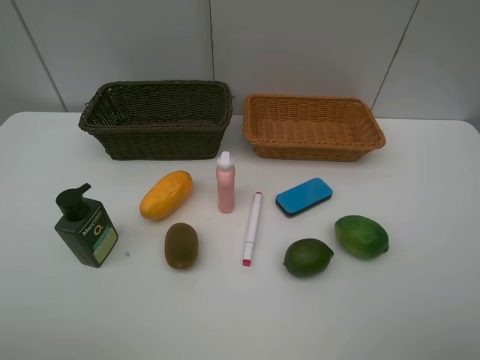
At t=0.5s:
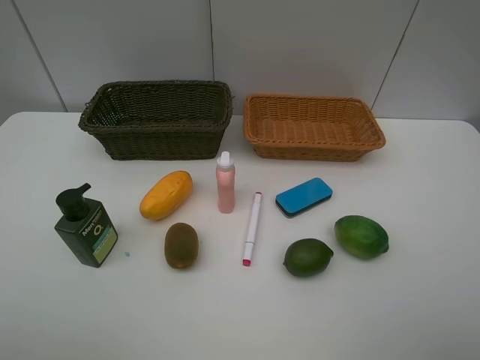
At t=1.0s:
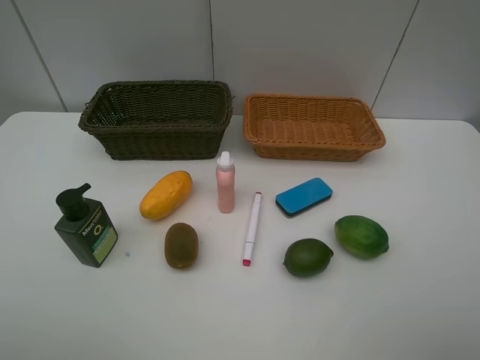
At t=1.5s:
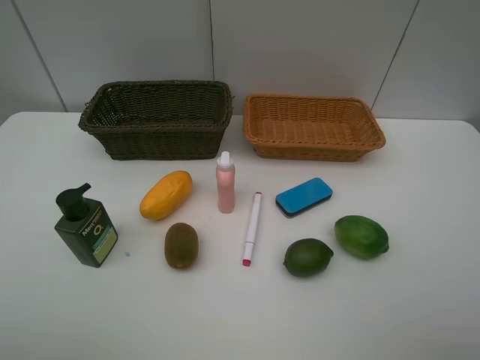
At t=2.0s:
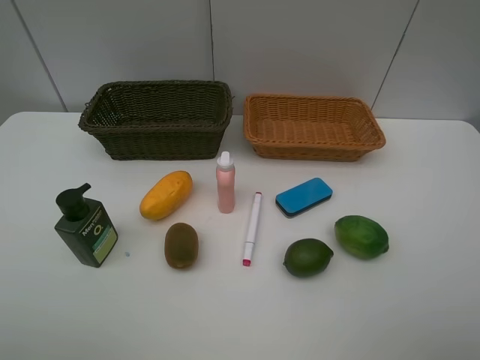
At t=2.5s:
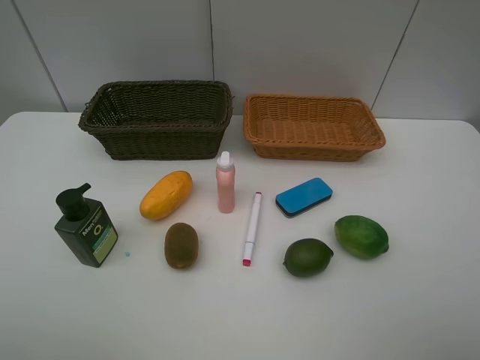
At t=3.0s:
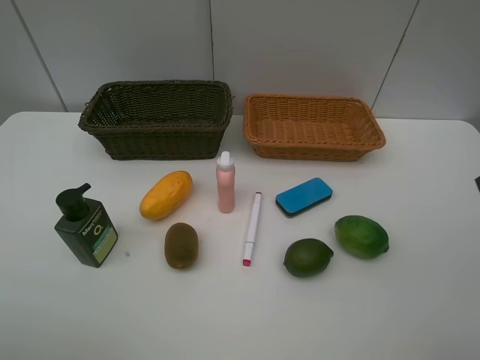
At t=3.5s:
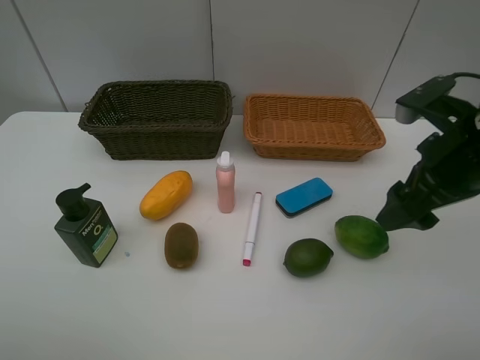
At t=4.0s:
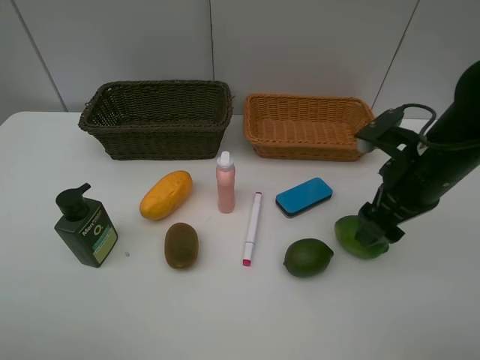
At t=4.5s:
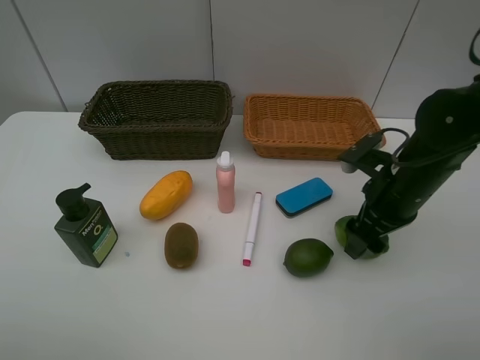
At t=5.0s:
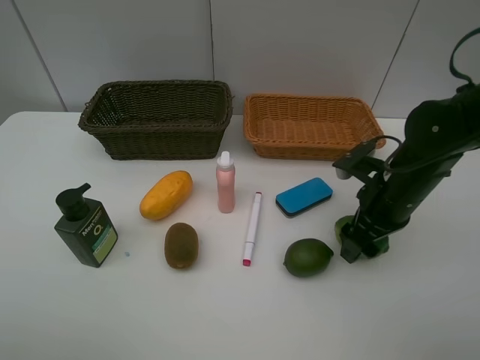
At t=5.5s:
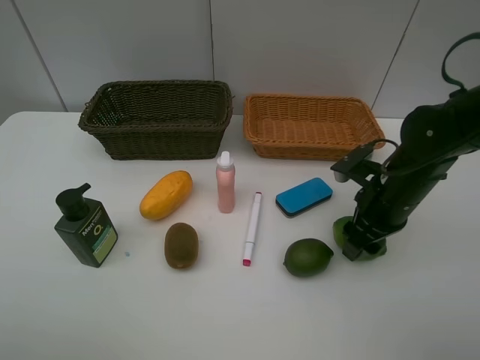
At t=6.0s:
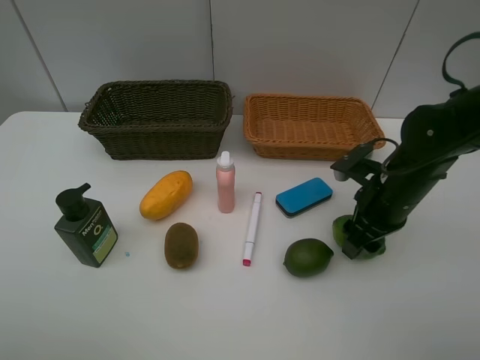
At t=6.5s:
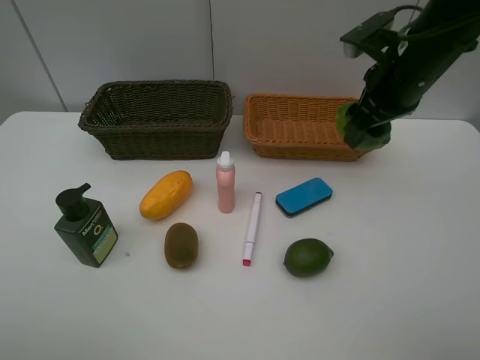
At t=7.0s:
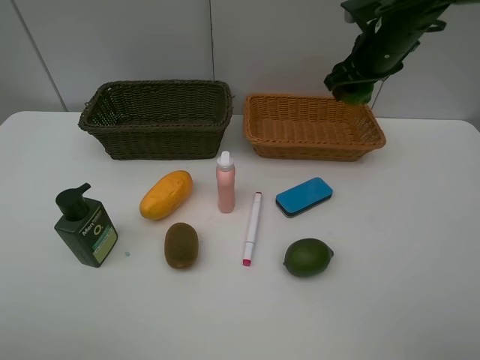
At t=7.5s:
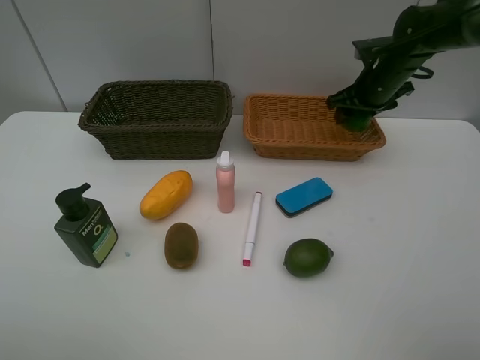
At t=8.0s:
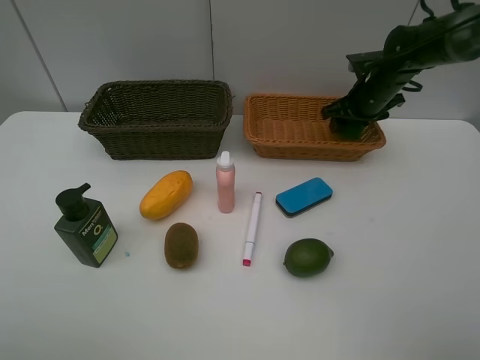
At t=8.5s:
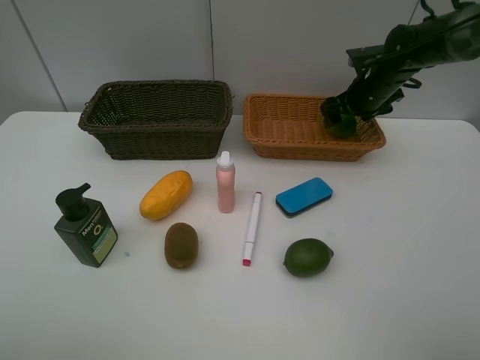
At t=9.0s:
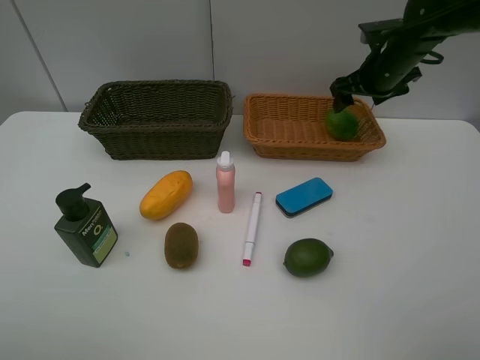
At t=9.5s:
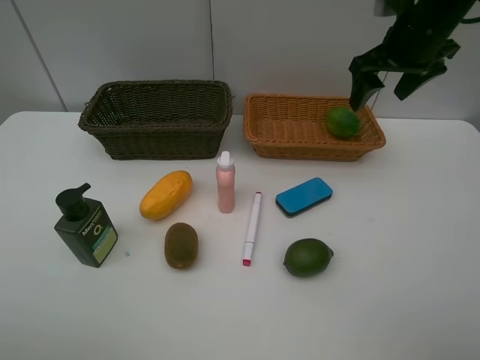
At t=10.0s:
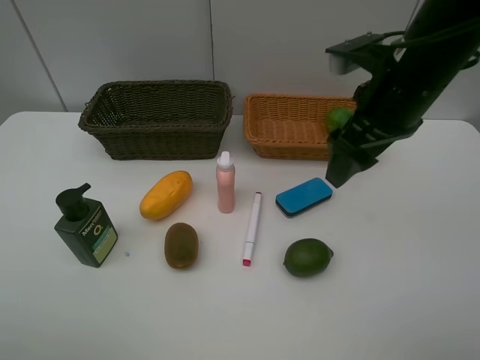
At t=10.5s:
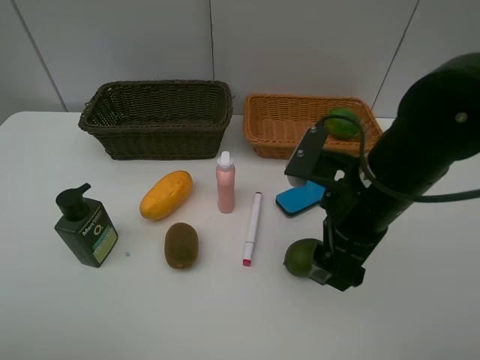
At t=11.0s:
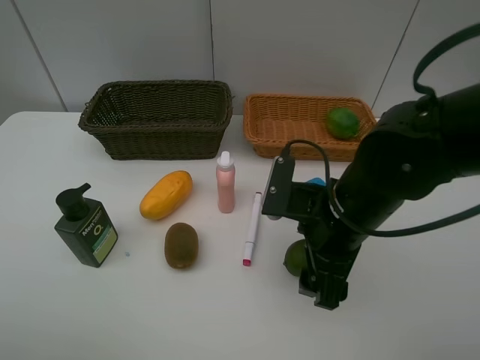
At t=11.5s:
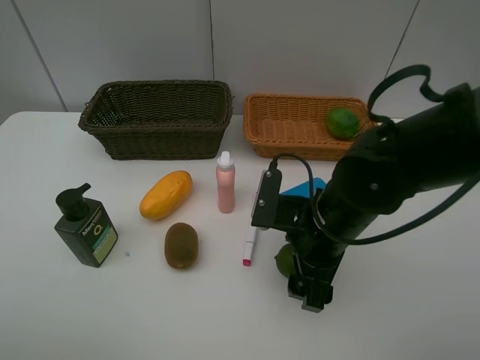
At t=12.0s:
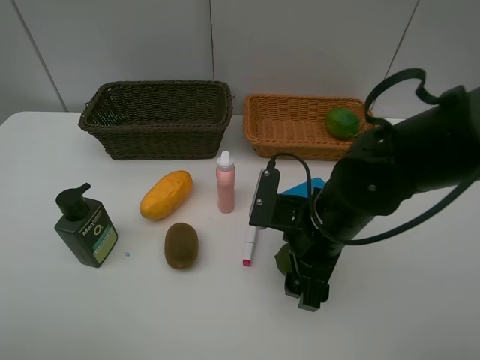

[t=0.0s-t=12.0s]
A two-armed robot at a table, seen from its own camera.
Task of the whole recording: Place multiple objects separately in different baskets.
Step, t=0.0s to t=6.0s: Pick up the lime with right gripper.
Step, t=6.5s to t=8.5s: Place the lime in the light basket with right gripper.
t=0.0s to t=2.0s: Both grippers stay about where they are.
t=2.0s to t=4.0s: The right gripper is displaced forward and downward by about 25 cm.
t=4.0s to t=6.0s: The right gripper travels downward by some 5 cm.
t=6.0s to t=8.0s: The right gripper is displaced forward by roughly 20 cm.
t=8.0s to t=10.0s: The right gripper moves backward and upward, approximately 25 cm.
t=10.0s to t=12.0s: The right gripper travels downward and to the left by some 15 cm.

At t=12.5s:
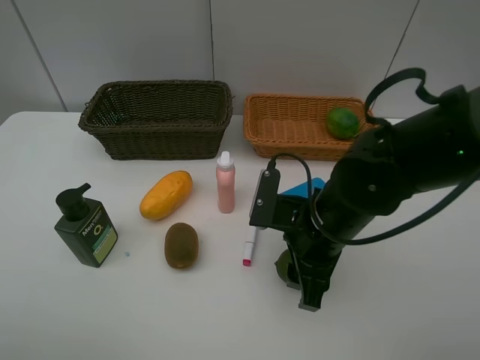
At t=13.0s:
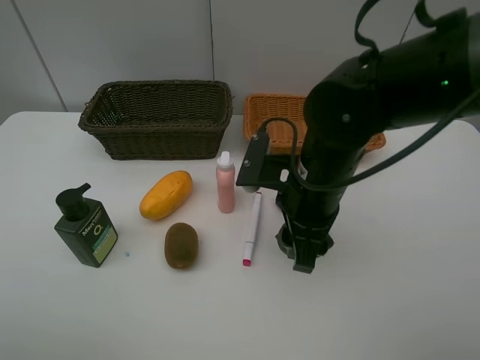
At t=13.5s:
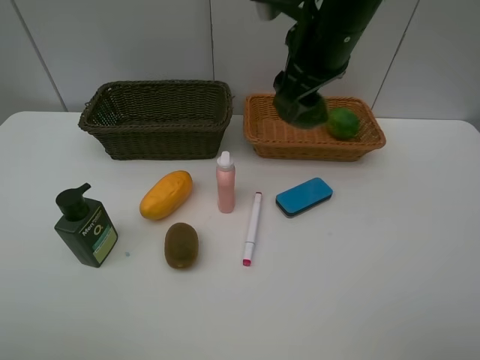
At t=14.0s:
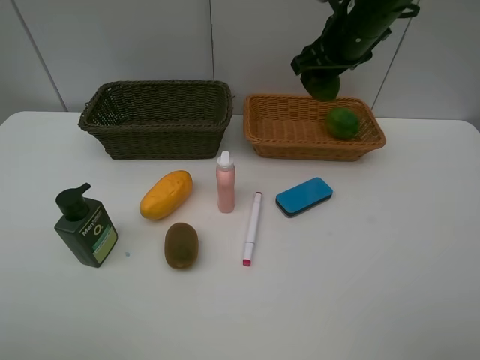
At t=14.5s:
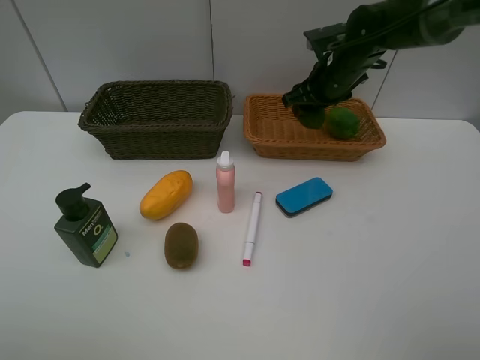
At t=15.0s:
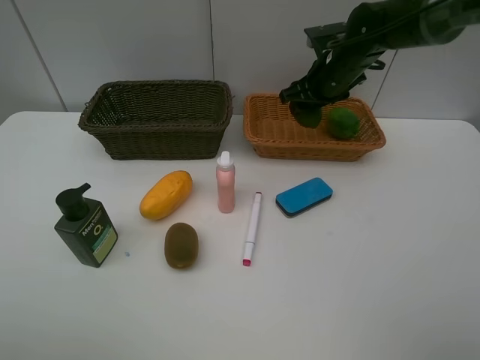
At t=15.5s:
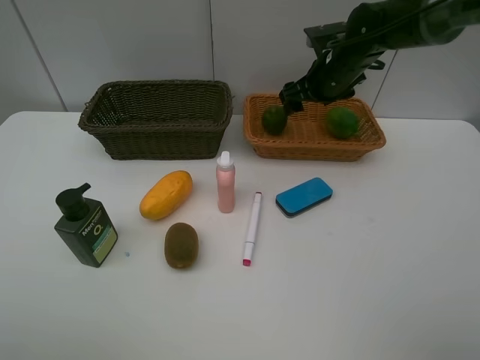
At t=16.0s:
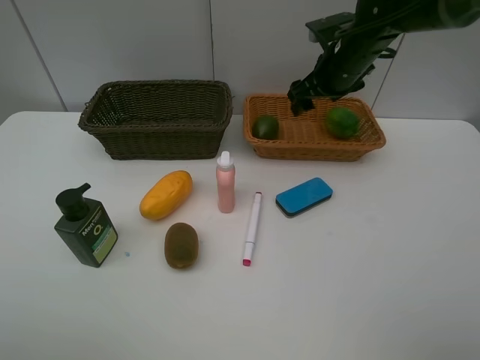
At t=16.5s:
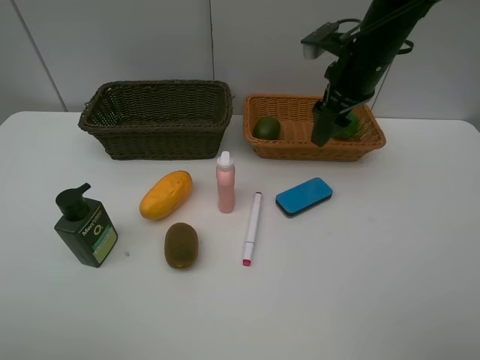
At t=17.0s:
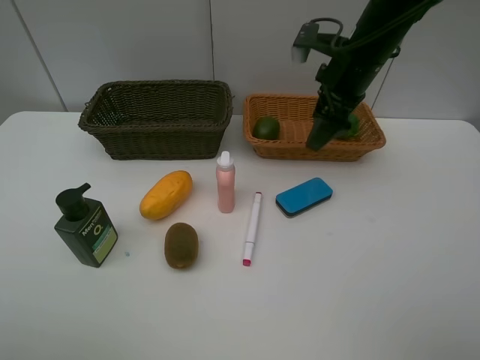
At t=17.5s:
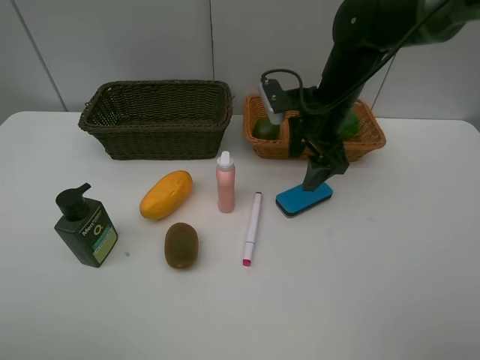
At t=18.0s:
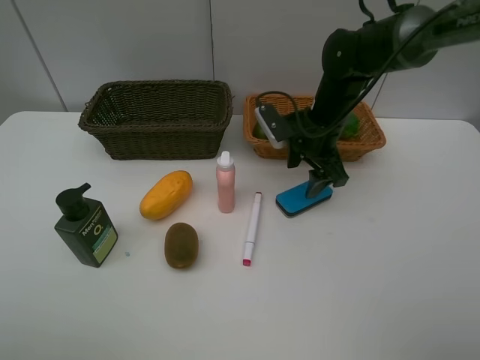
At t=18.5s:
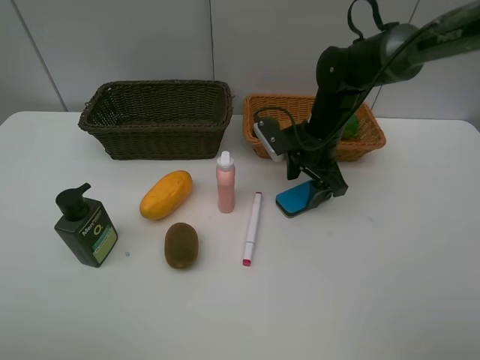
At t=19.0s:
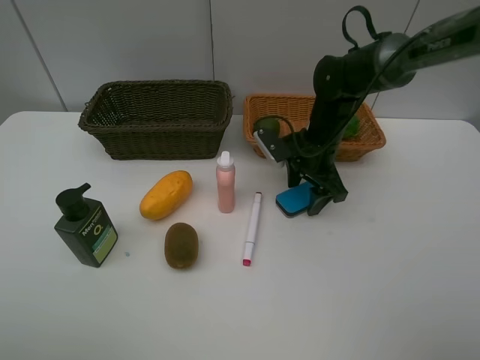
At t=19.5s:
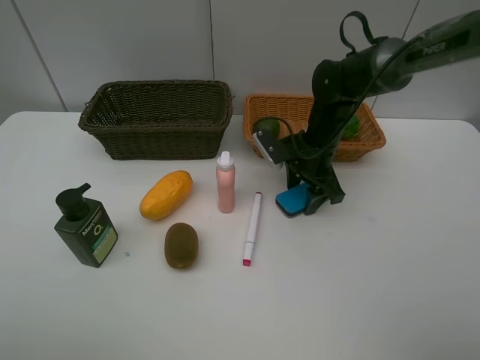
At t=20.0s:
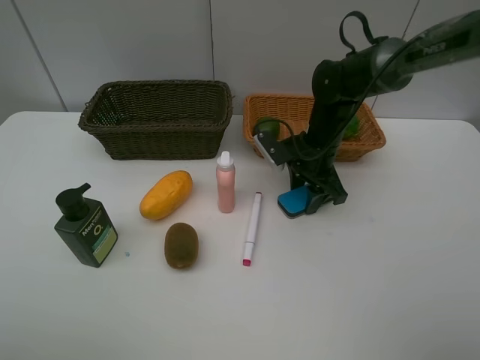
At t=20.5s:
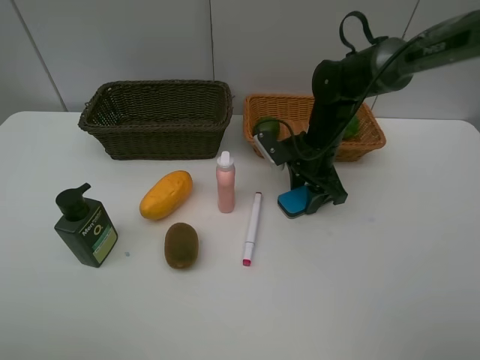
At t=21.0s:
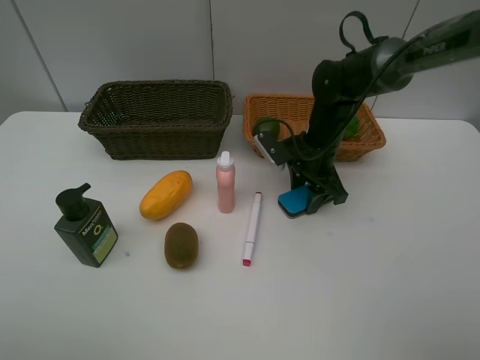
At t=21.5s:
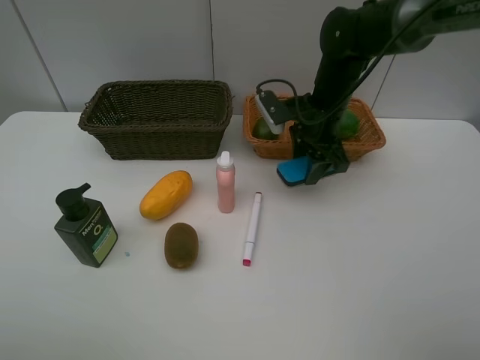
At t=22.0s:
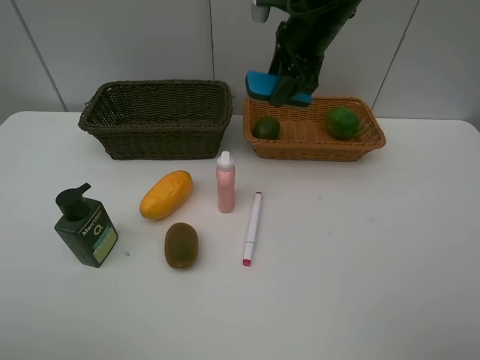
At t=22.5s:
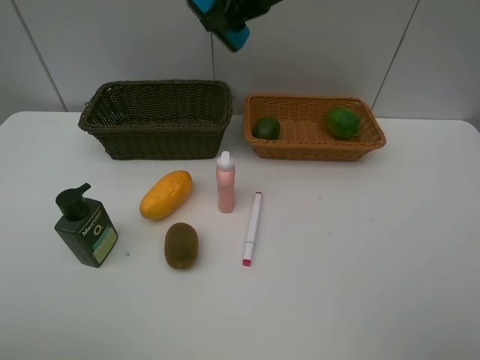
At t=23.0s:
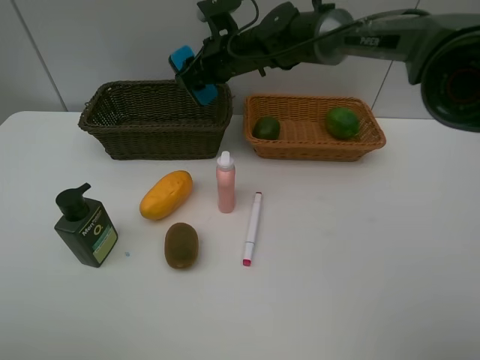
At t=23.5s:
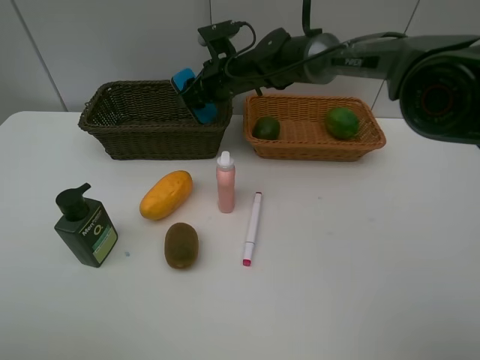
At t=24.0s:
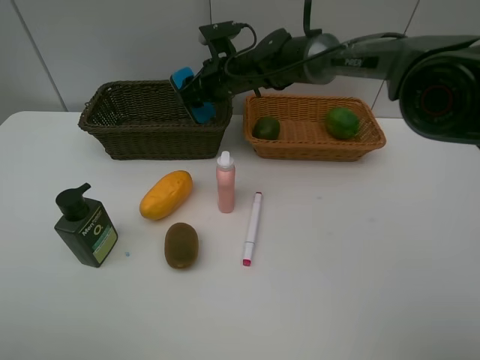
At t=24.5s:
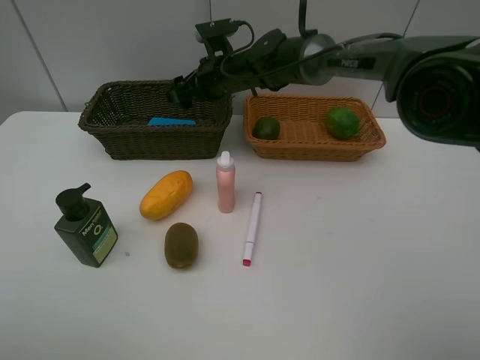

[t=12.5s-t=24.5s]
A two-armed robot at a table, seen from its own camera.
Task of the whole recording: Place multiple objects separately in different baskets.
Step, t=13.0s to t=15.0s: Place the lime in the light basket with right gripper.
Step, t=15.5s to t=21.0s: Pick up blackboard eraser with right gripper.
t=12.5s to t=14.5s: The right gripper travels forward by about 25 cm.
t=14.5s to t=16.5s: The right gripper moves backward, some 5 cm.
t=16.5s to t=18.5s: The right gripper is displaced downward by approximately 10 cm.
t=18.5s to t=20.5s: The grippers move only a little.
t=20.5s to t=22.5s: The right gripper heads upward and to the left, covering approximately 20 cm.
t=22.5s to t=24.5s: The right gripper shifts approximately 15 cm downward, and opens up.

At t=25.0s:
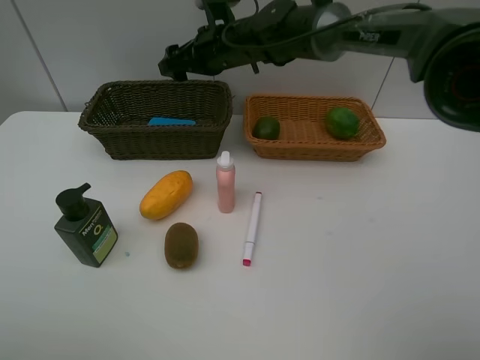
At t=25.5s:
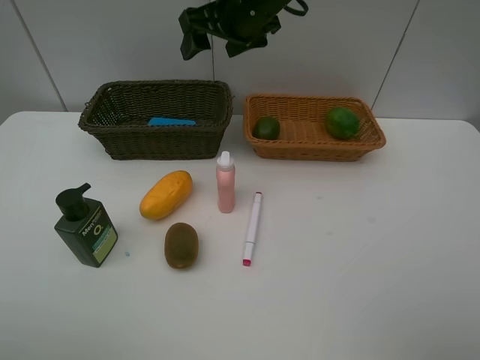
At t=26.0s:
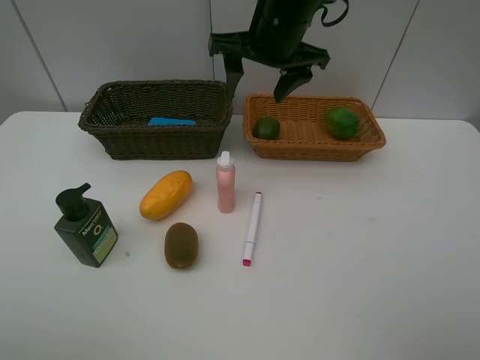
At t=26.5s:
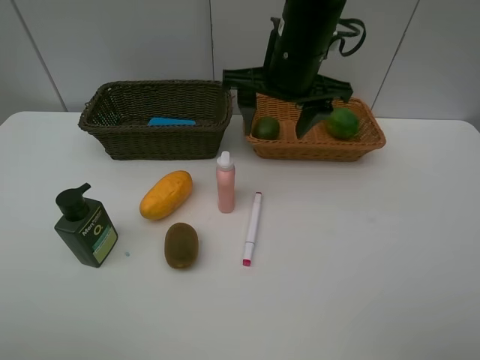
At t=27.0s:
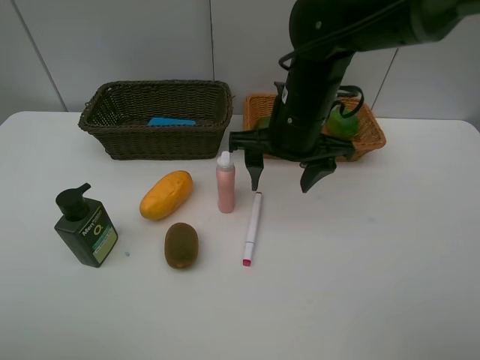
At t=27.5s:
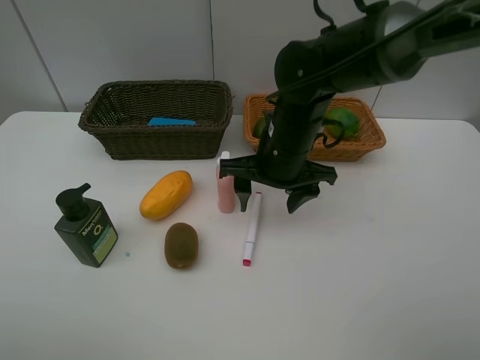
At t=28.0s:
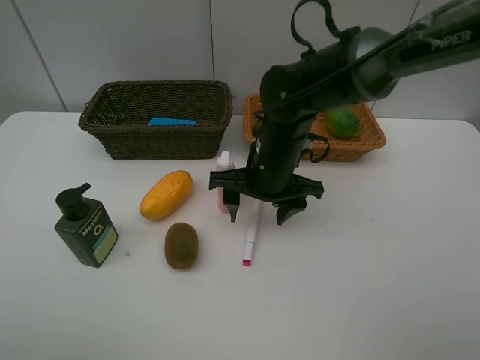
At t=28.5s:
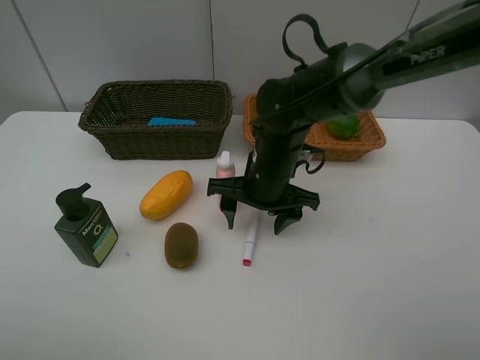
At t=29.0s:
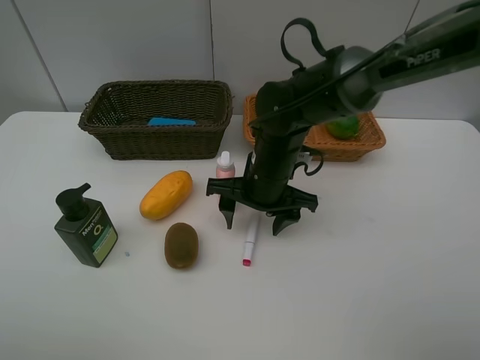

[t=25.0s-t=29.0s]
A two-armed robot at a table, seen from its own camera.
Task of the whole recording: Place multiple objects separately in different baskets.
t=25.0s to t=27.0s: The right gripper heads backward and to the right, covering approximately 20 cm.
t=27.0s to t=29.0s: The right gripper goes roughly 10 cm downward.
